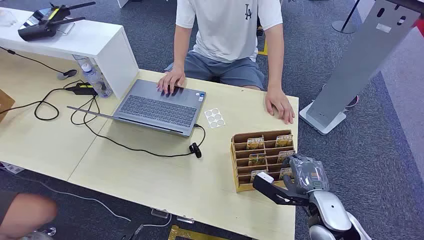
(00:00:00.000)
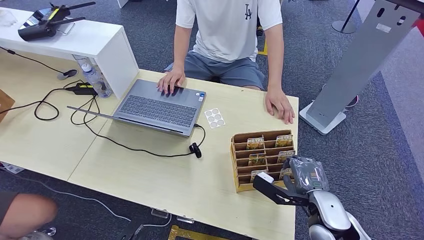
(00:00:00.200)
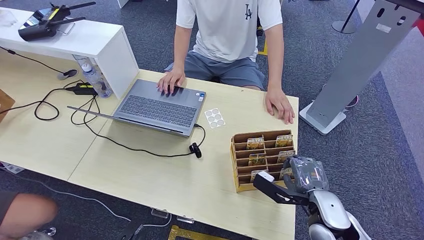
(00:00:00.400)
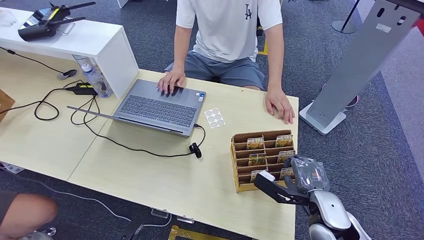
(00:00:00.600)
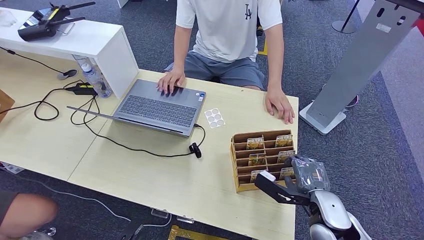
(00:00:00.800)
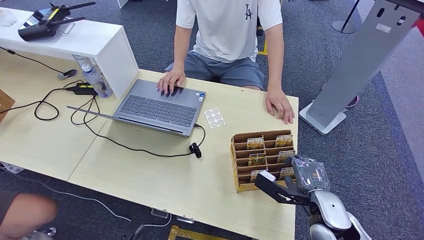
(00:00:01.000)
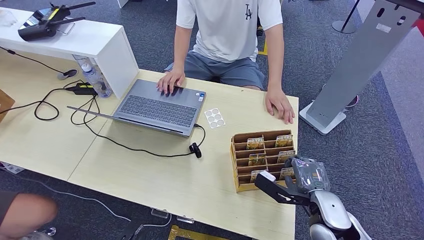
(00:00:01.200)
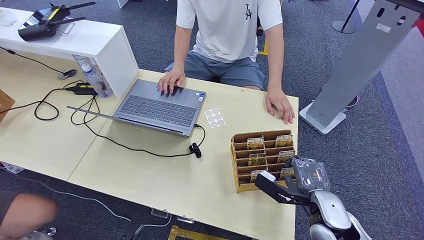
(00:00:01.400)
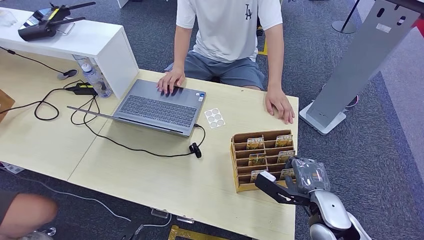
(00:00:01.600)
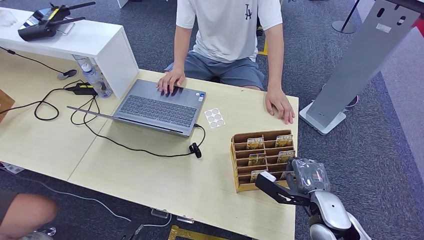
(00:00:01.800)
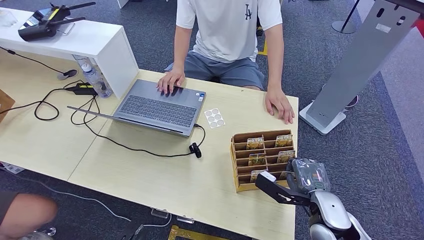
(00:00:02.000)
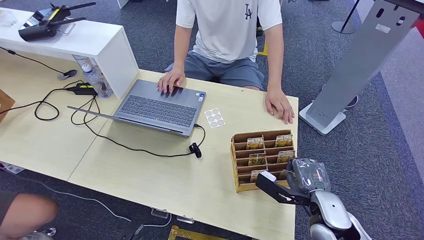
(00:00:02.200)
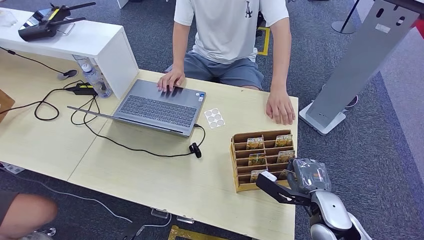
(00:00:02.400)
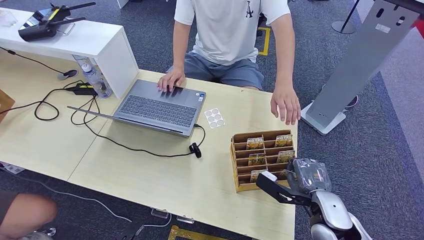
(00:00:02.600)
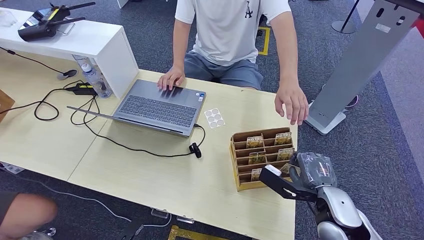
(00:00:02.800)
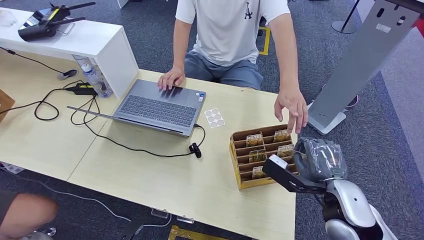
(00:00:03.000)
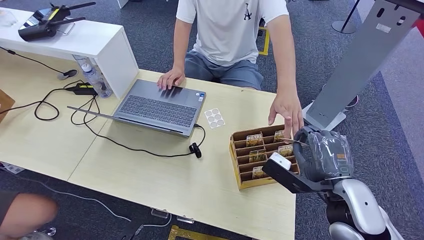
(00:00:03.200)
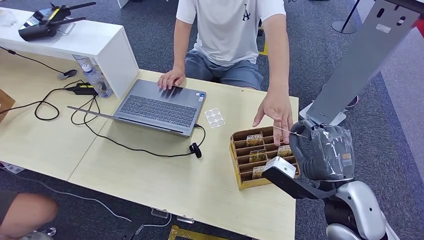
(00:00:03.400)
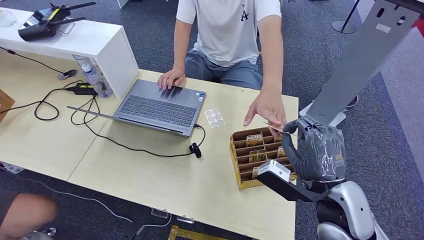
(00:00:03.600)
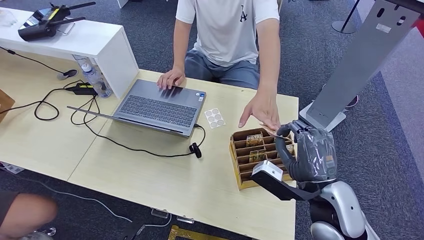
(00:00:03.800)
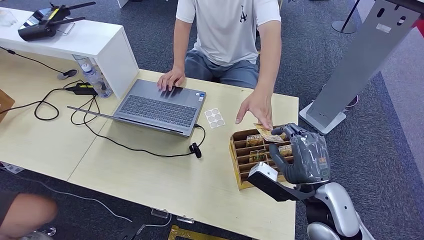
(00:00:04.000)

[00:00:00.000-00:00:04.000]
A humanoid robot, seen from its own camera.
Step, 00:00:00.000 to 00:00:03.000: Pick up the key card from the card box.
Step, 00:00:03.400 to 00:00:04.000: Hand the key card to the target.
00:00:01.400 to 00:00:02.600: The two hands keep their place.
00:00:02.600 to 00:00:04.000: The right hand travels upward by approximately 10 cm.
